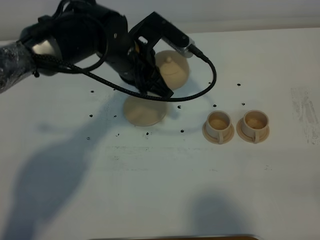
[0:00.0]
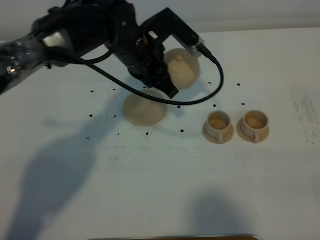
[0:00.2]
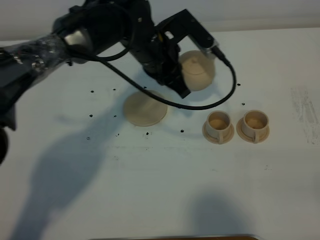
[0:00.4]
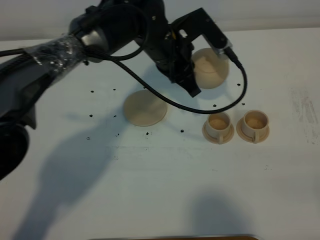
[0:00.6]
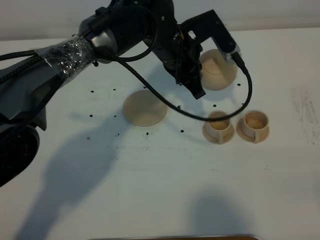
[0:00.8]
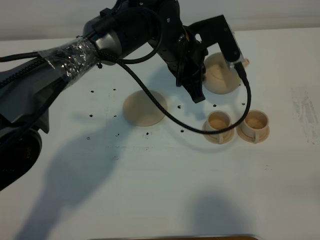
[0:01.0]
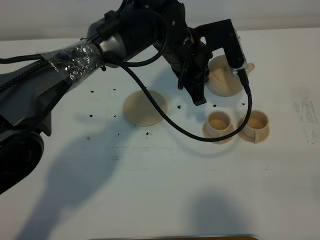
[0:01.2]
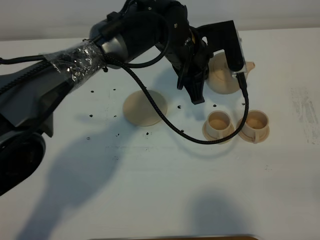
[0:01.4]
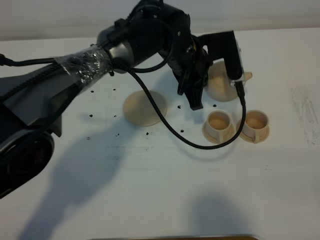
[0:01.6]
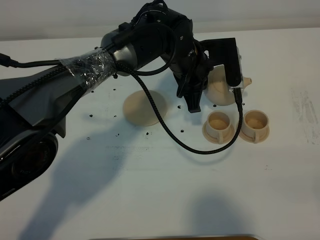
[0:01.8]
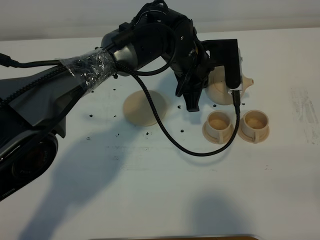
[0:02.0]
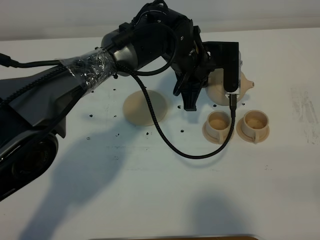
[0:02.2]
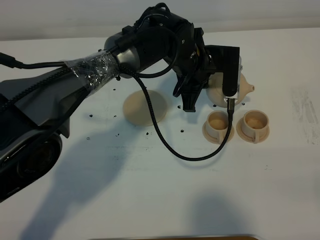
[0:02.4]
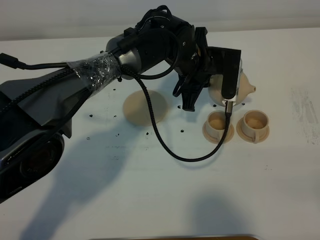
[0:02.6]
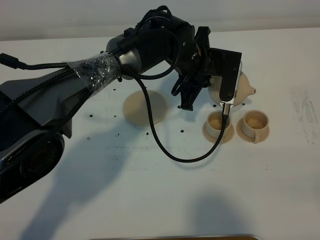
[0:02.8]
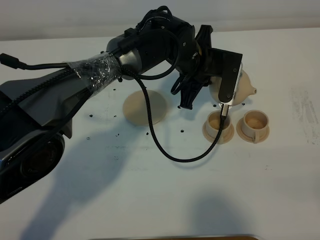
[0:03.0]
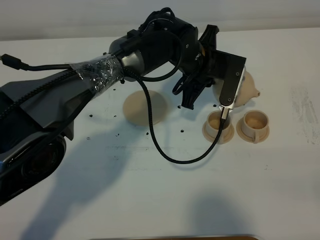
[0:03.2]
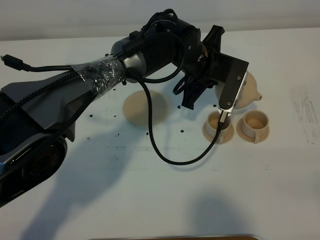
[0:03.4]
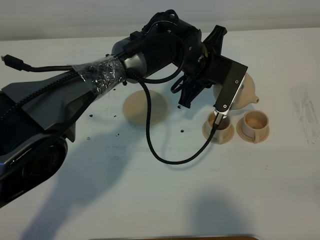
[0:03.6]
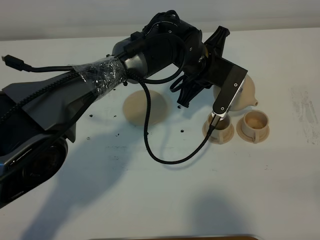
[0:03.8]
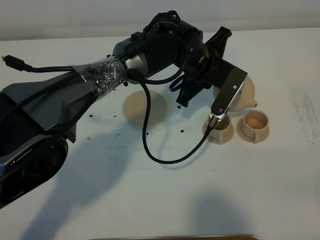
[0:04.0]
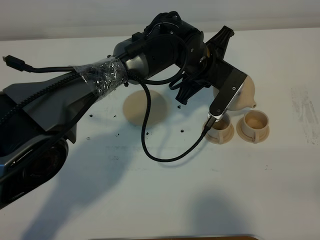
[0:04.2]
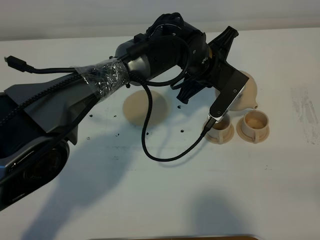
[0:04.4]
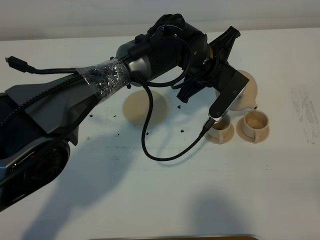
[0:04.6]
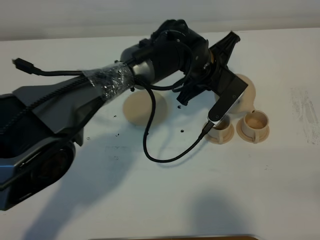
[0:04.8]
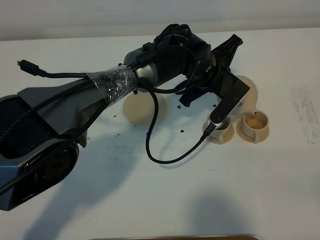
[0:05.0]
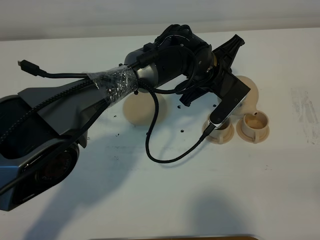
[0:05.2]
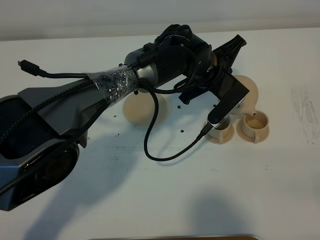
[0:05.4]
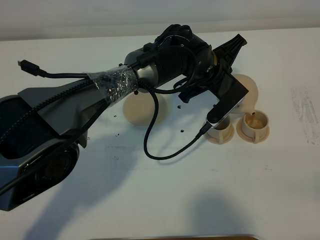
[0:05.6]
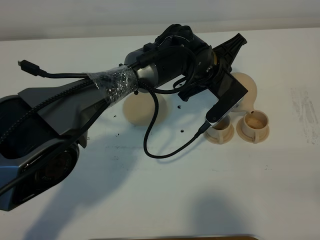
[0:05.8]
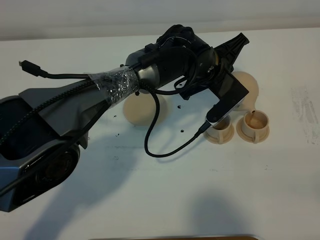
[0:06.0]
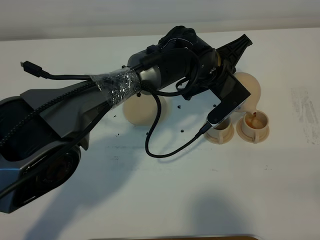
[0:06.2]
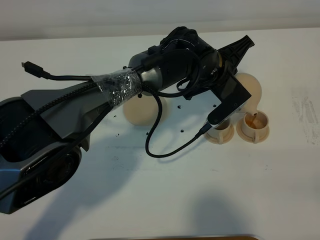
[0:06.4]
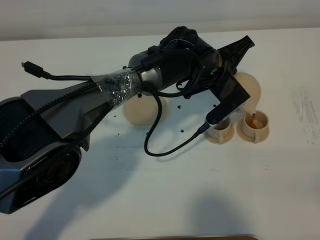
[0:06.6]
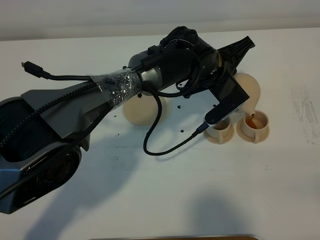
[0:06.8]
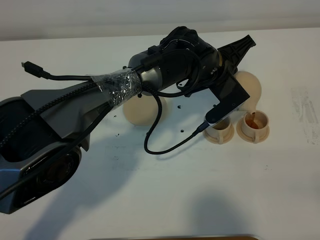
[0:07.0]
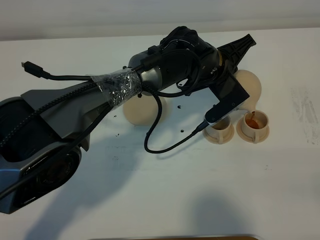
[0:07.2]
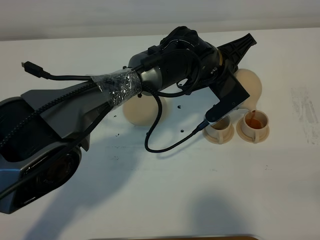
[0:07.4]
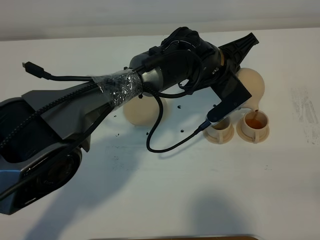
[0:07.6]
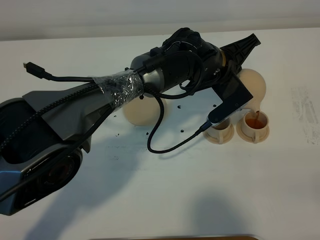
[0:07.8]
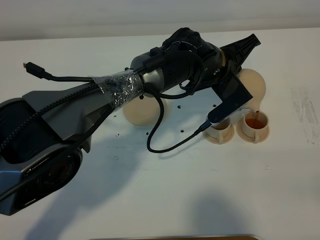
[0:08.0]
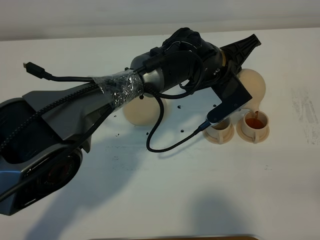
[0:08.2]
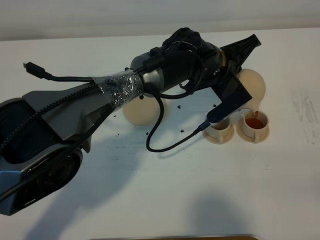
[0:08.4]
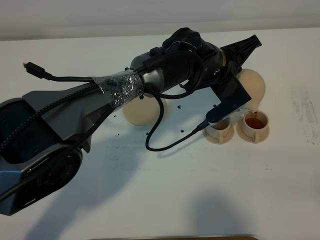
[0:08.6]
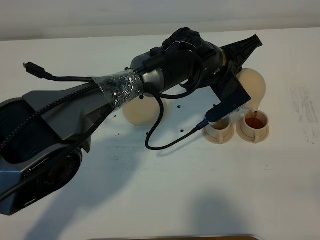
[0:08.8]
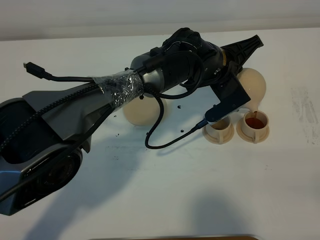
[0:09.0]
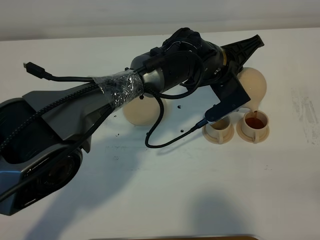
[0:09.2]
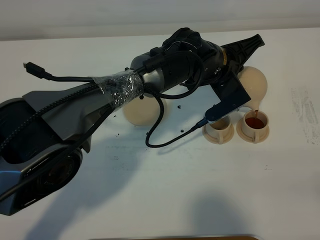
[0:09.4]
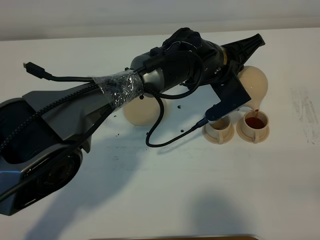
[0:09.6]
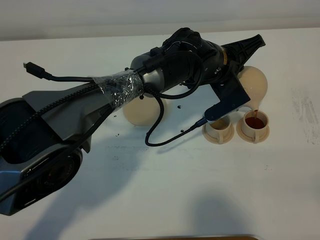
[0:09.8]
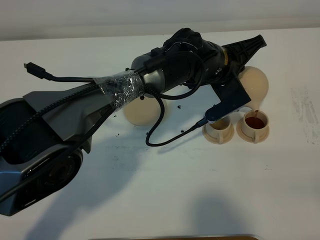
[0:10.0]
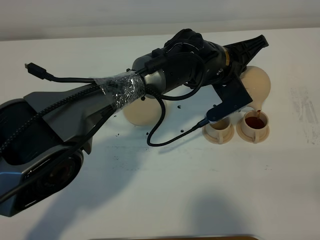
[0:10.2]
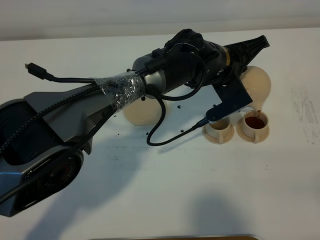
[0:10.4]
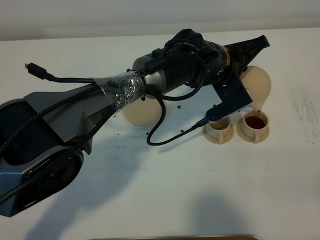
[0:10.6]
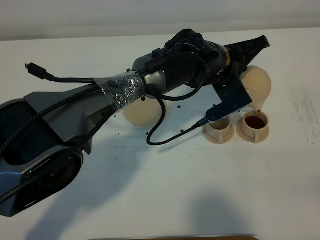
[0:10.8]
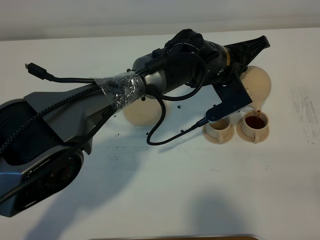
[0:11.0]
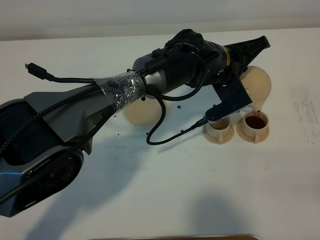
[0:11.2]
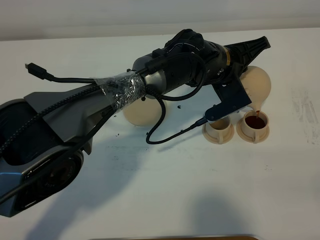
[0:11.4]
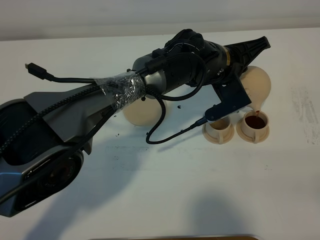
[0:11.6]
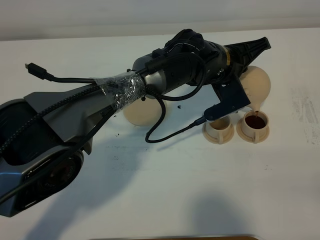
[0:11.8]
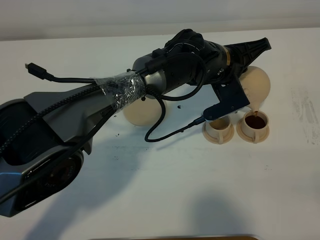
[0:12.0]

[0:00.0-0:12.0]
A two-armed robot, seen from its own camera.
Task of the whole recording: grasp the brown teapot and pour the tea into the two brown teacups one by one, put the brown teapot back in its original place.
0:00.0 to 0:01.6: The left gripper heads to the right, covering approximately 10 cm.
0:04.4 to 0:07.6: The grippers move only a little.
0:07.6 to 0:09.0: There are only small adjustments of the grippers.
0:09.0 to 0:10.4: Both grippers stay about where they are.
0:10.4 to 0:12.0: Both grippers stay about where they are.

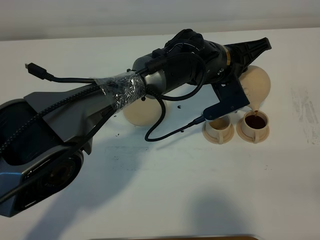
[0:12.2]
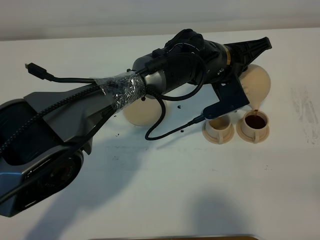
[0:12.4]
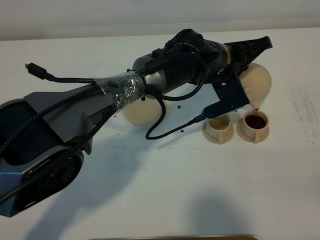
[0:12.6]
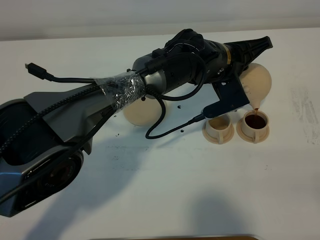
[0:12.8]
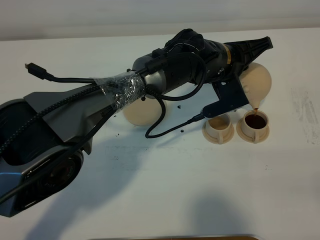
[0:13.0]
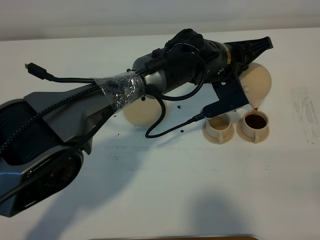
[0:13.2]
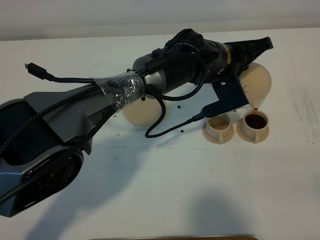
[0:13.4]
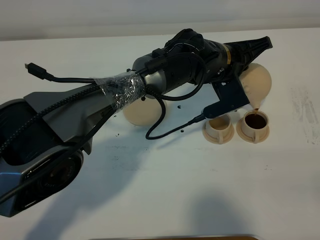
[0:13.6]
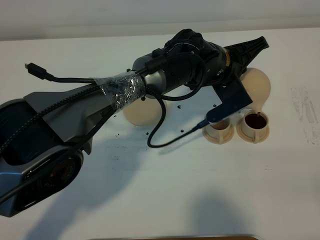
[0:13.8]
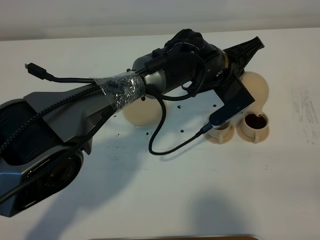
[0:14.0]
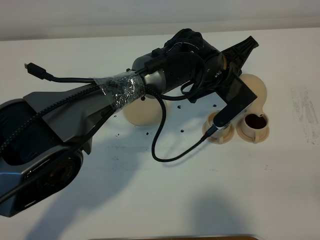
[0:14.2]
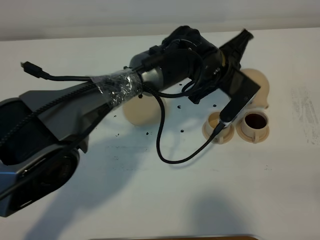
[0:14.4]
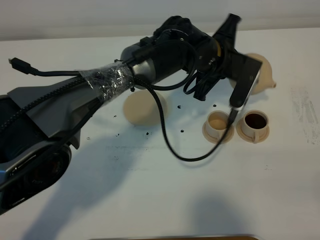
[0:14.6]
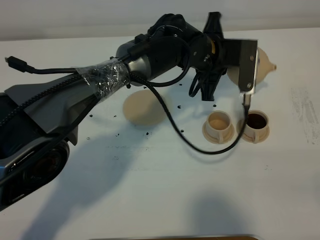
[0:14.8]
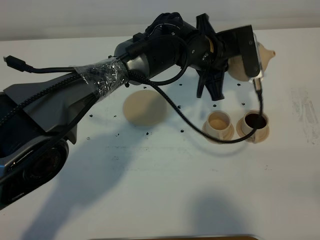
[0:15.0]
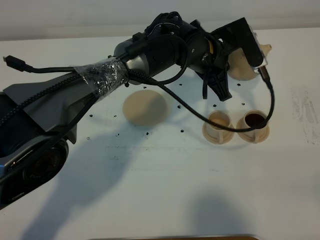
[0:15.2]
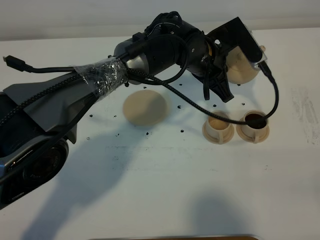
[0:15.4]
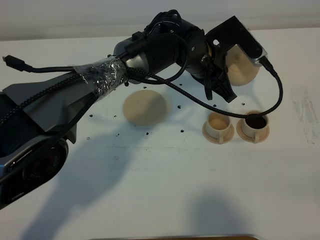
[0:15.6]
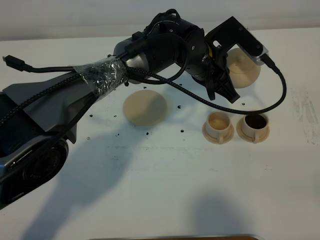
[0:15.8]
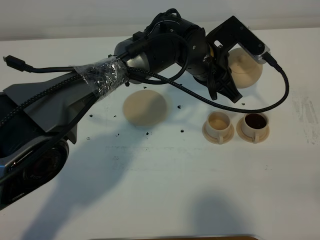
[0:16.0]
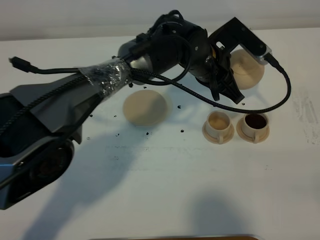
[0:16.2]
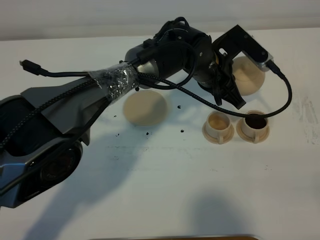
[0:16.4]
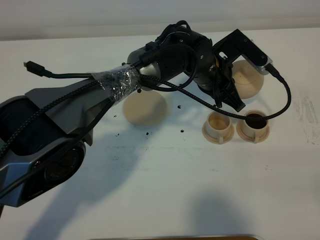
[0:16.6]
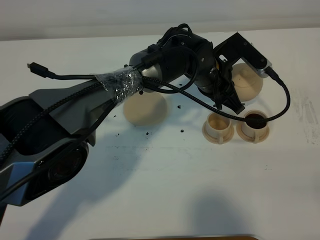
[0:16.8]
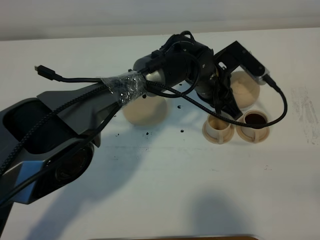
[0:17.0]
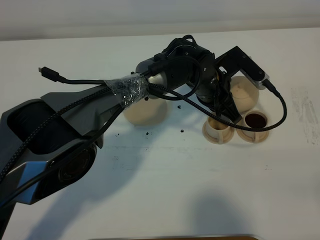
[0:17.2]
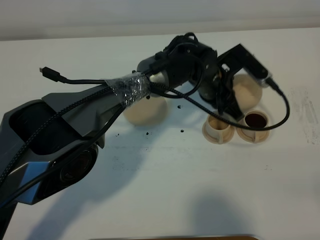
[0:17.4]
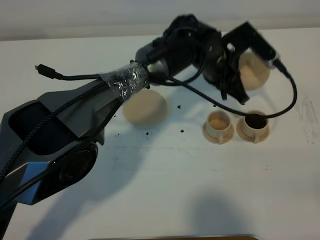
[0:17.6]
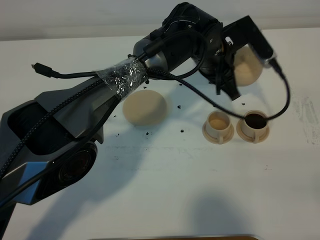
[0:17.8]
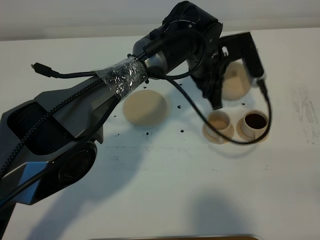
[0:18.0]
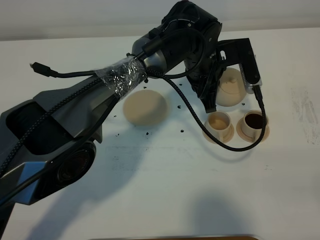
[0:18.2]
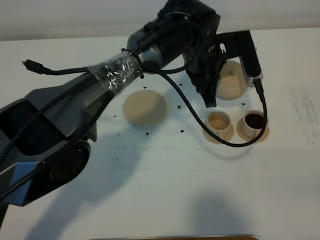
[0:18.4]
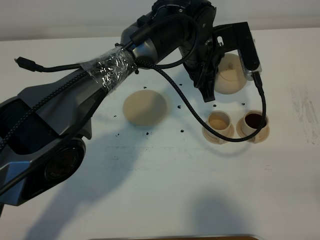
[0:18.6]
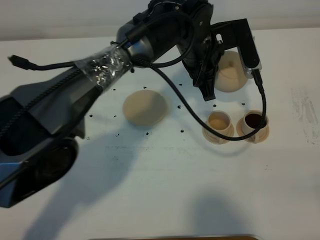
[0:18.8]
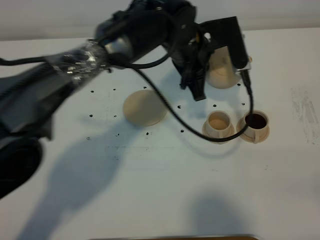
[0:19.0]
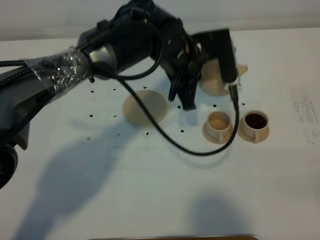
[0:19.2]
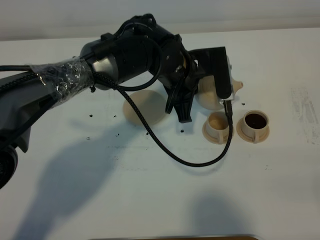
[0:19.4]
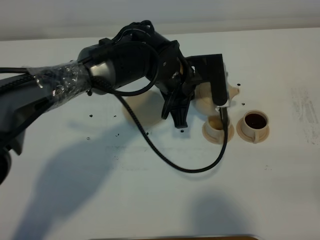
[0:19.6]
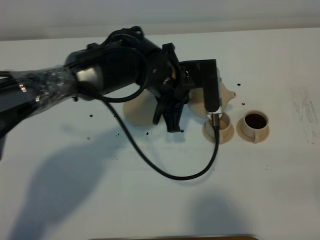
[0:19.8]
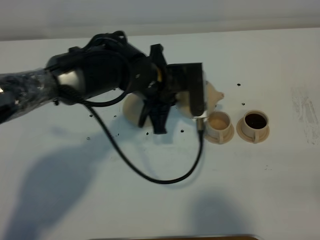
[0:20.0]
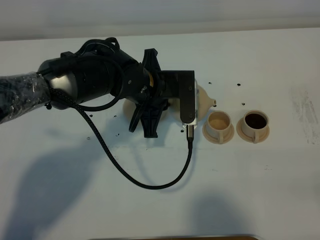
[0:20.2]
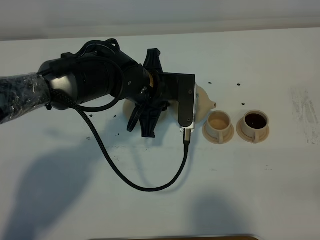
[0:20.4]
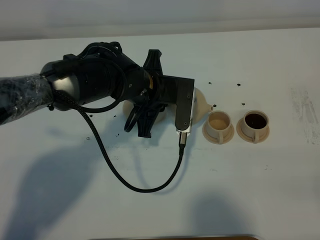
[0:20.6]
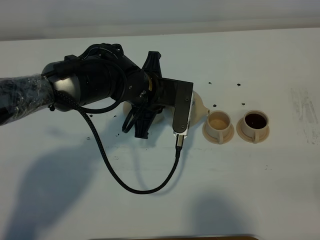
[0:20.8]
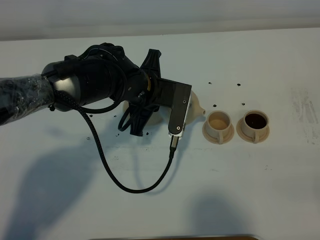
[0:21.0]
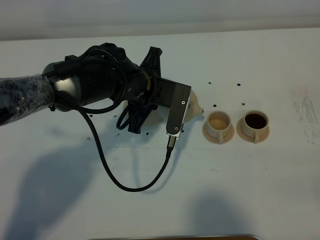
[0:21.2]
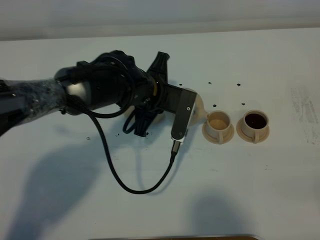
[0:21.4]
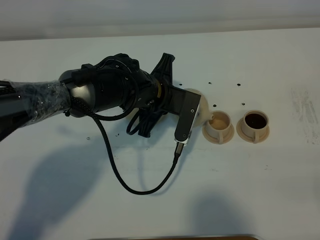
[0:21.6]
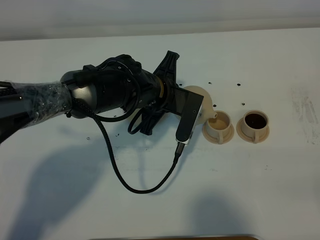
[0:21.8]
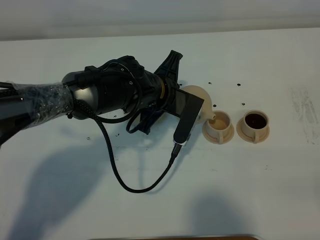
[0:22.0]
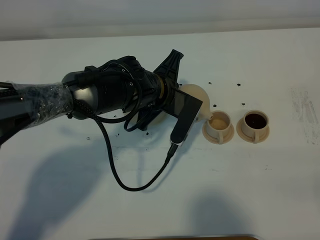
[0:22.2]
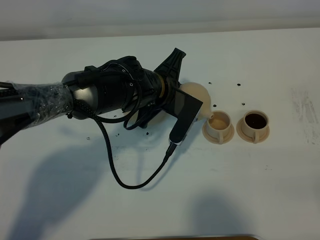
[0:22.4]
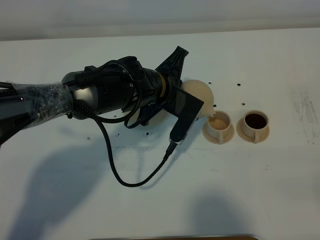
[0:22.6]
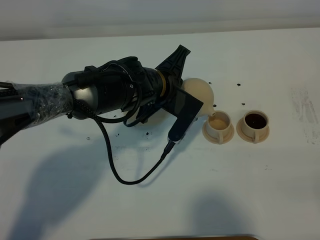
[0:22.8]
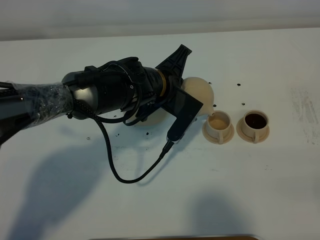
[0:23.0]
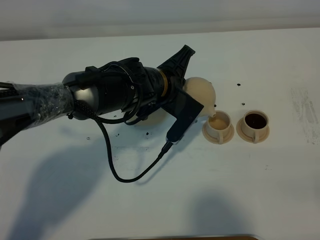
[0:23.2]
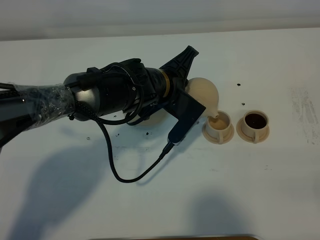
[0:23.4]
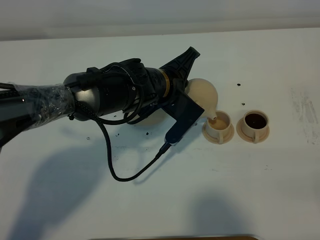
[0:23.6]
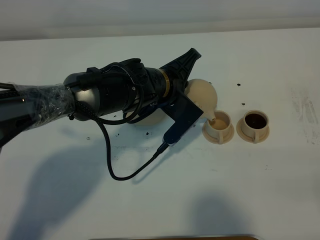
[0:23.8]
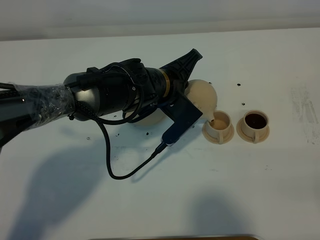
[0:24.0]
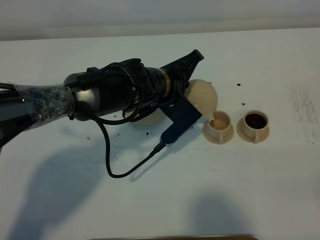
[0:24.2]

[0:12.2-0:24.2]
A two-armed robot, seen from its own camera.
Task of the whole recording: grasp the brown teapot and pour the tea into the two brown teacups one by one, put the brown teapot back in its original place.
0:12.2 to 0:13.8: The grippers make only small movements.
0:15.2 to 0:16.6: The grippers make only small movements.
0:18.2 to 0:19.8: The left gripper heads to the left and backward, covering roughly 10 cm.
0:21.2 to 0:22.6: The grippers move only a little.
0:22.6 to 0:24.2: The grippers move only a little.
